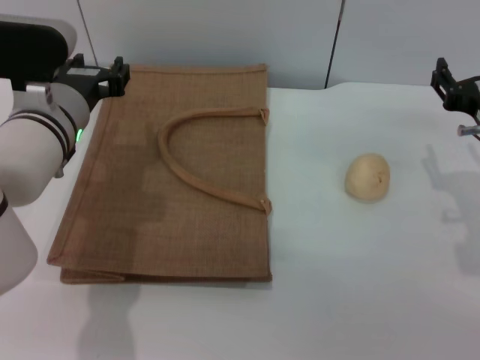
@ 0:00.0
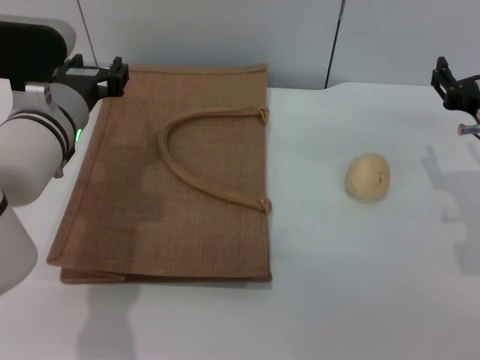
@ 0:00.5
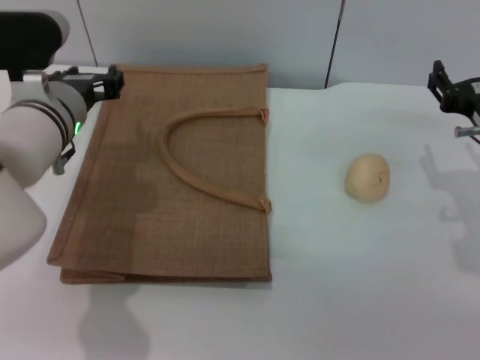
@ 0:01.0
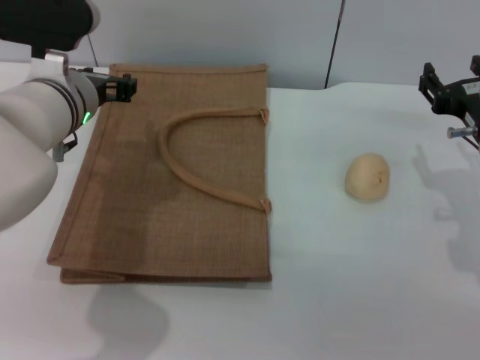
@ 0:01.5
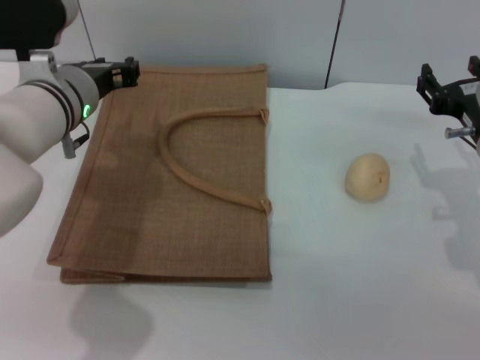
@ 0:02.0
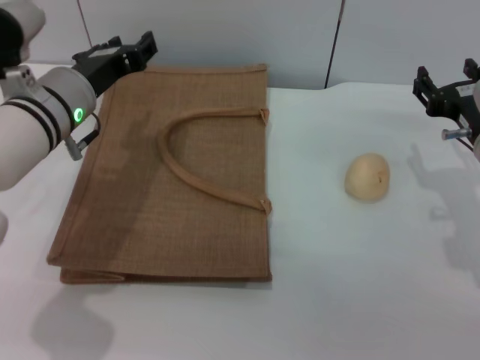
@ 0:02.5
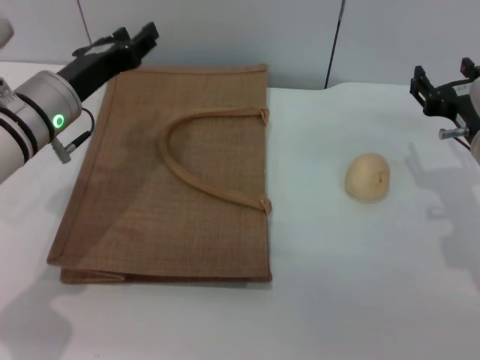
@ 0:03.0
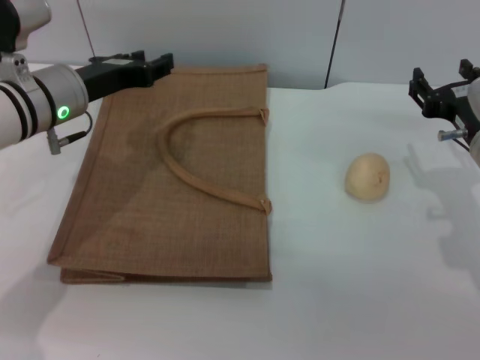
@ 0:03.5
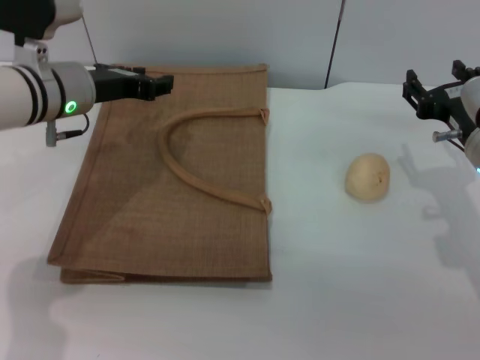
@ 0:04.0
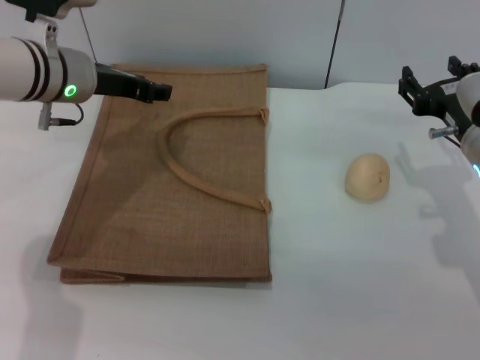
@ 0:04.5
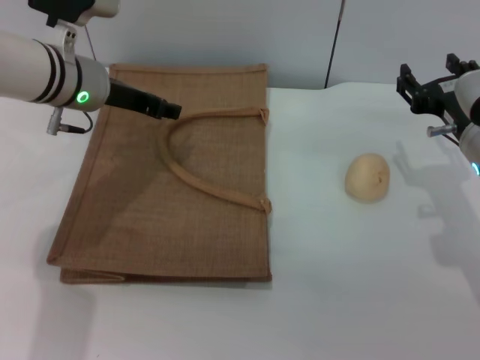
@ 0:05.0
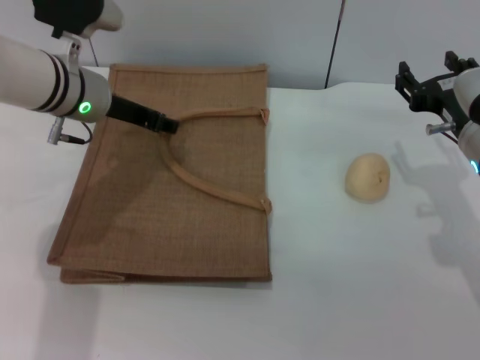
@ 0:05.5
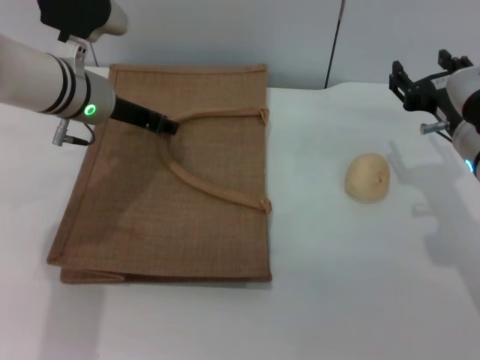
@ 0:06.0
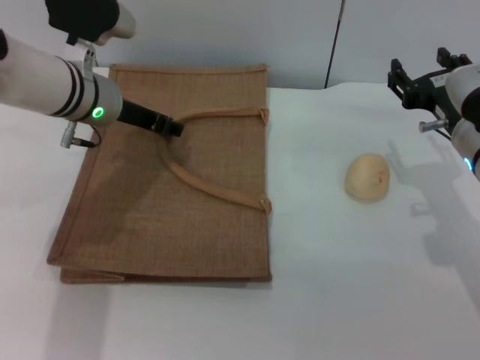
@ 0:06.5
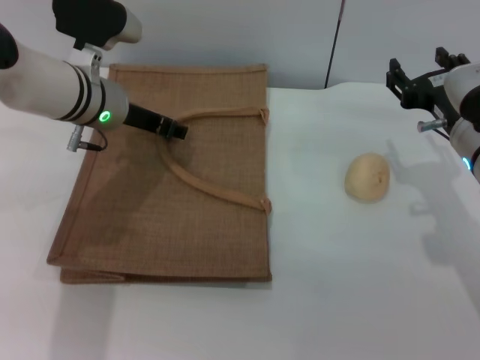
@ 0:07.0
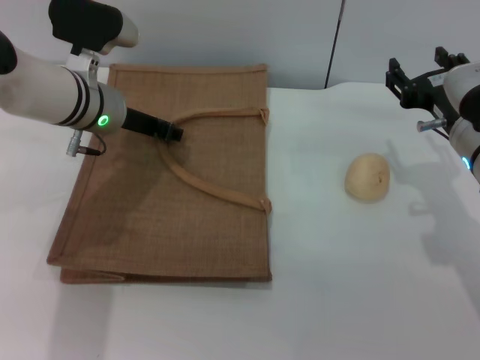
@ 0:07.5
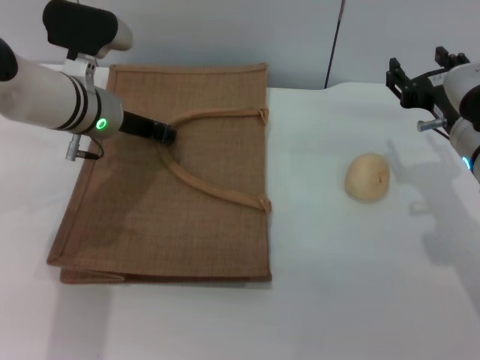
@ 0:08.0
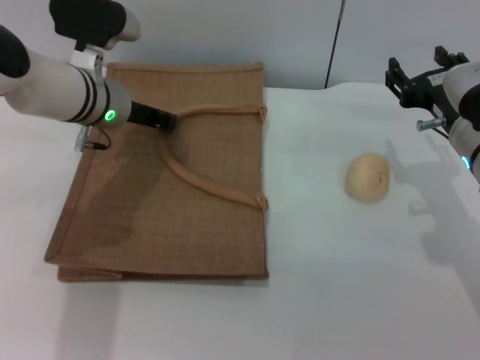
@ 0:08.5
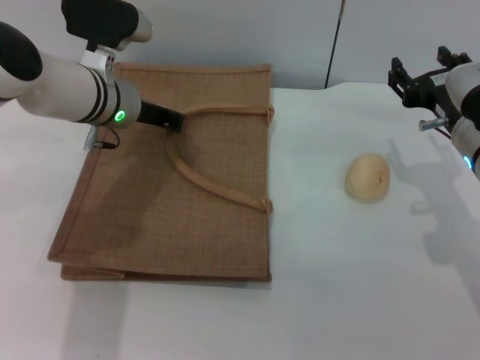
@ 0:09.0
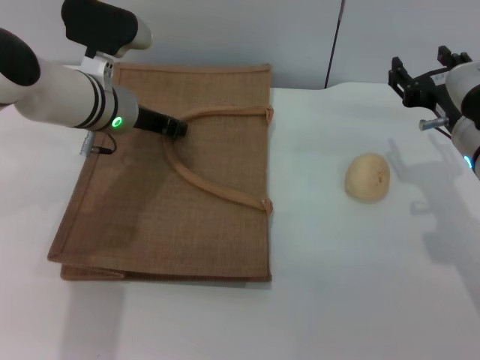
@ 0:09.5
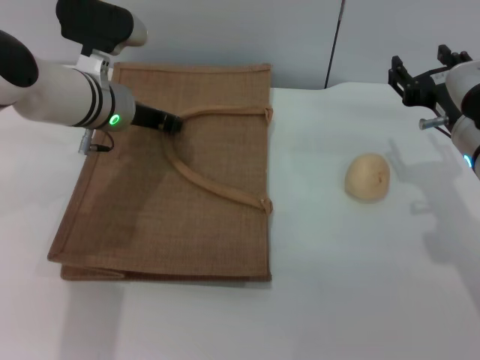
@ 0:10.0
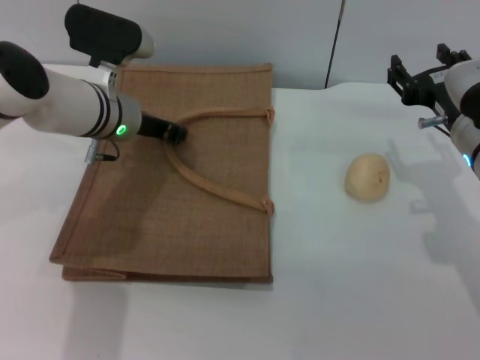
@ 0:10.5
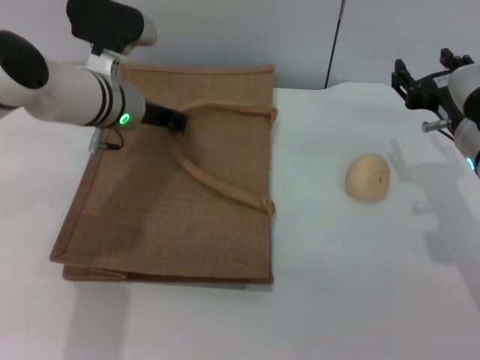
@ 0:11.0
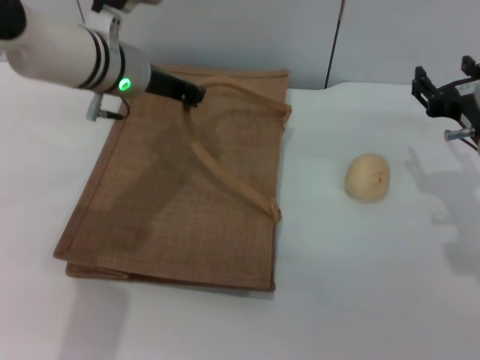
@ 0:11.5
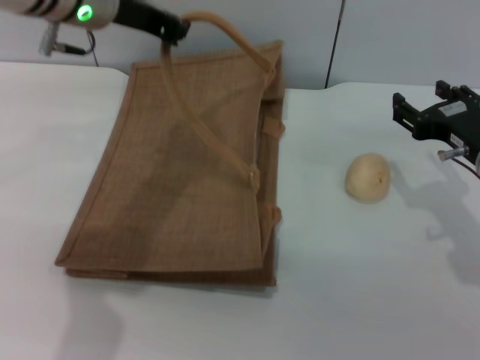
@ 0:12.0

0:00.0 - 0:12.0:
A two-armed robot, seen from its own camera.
Task of the whole recording: pick up the egg yolk pastry from the table and place it in the brown handbag.
Step, 0:00.0 - 0:10.5: Lift the woven bag with the left gripper to open it.
0:00.0 - 0:02.0: The grippers move only a little.
0:06.0 - 0:10.0: The grippers move only a little.
0:10.0 - 0:12.0: The left gripper goes some 15 cm upward.

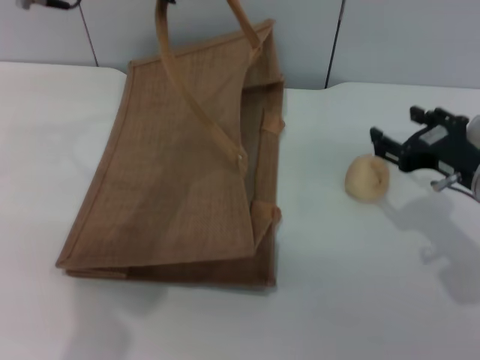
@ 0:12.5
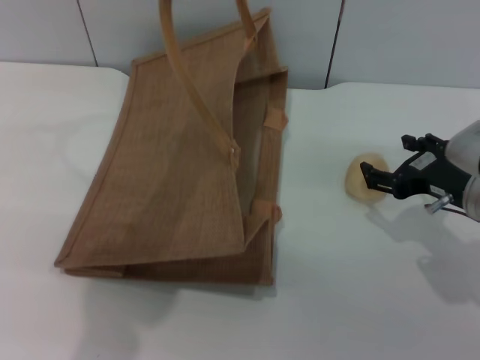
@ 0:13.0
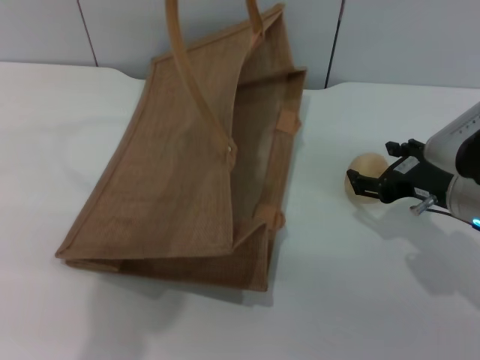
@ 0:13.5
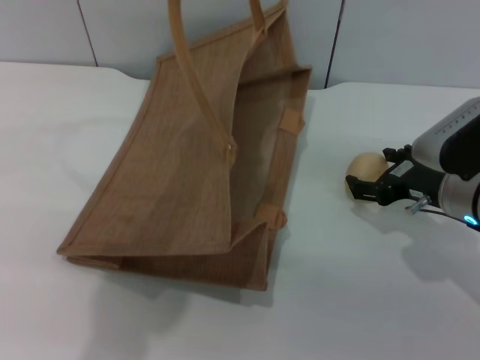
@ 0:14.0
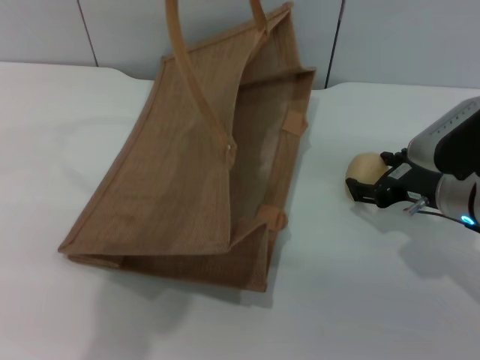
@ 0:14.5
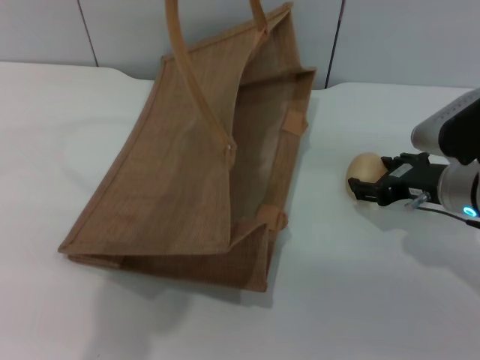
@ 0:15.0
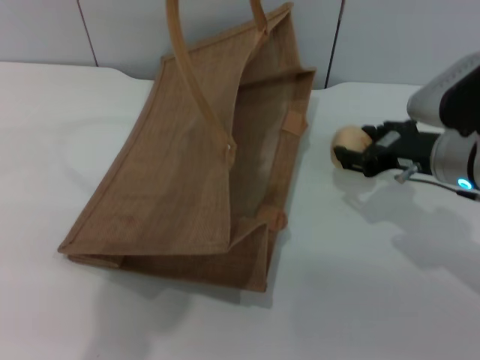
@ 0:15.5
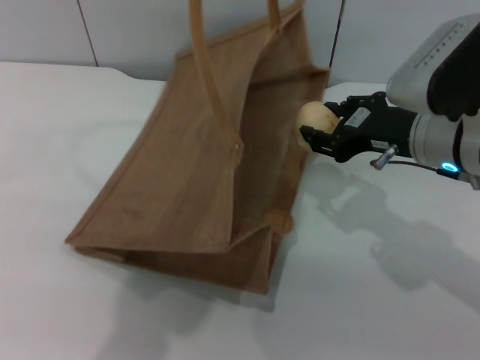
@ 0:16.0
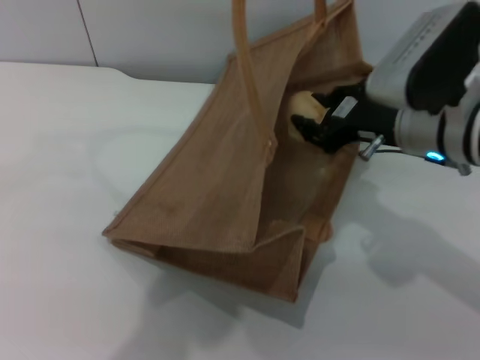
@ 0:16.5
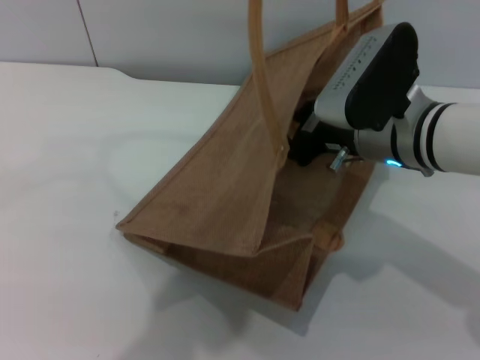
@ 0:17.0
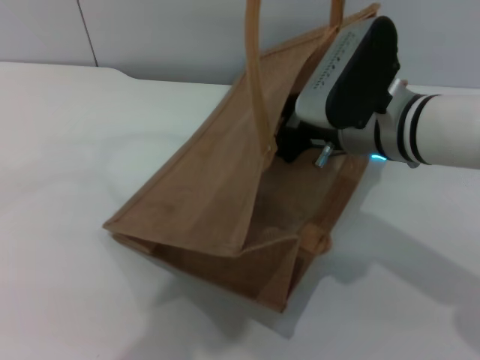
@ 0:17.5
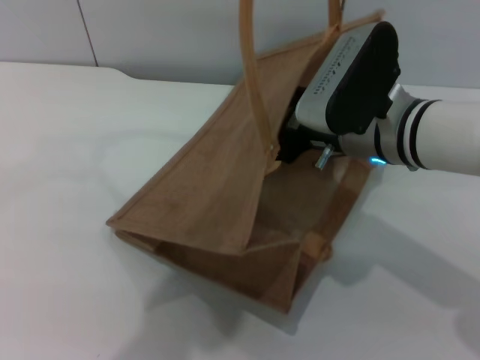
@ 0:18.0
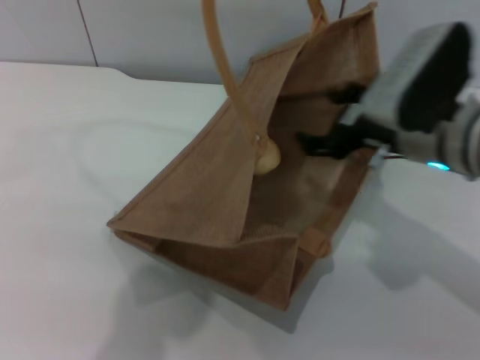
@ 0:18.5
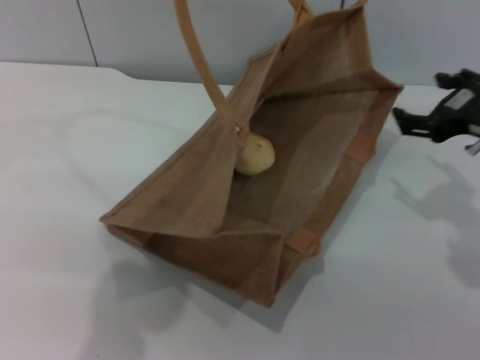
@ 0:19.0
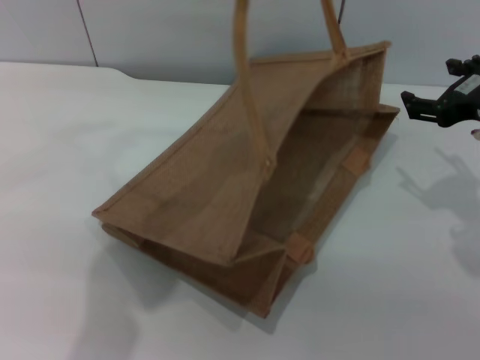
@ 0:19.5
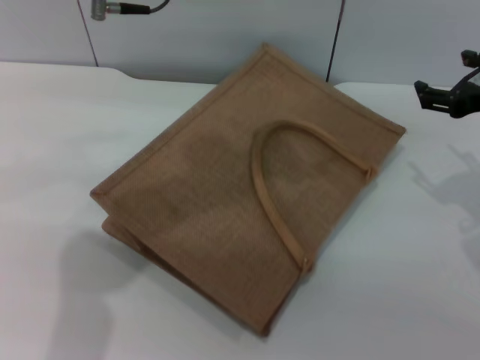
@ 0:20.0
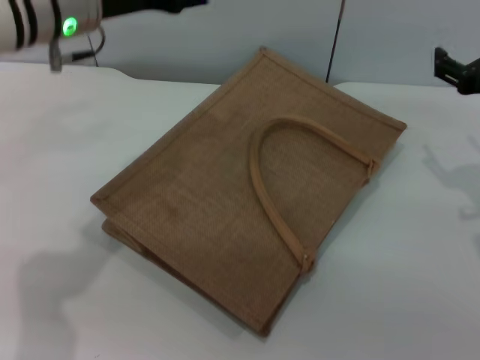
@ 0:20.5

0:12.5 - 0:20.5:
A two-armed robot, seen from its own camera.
Task of the whole recording: pick up the egg yolk pastry from the table and place it in the brown handbag.
Step, 0:12.5 - 0:15.5: Pick up the egg yolk pastry with the right gripper.
Step, 0:16.0 - 0:18.5: Place the egg yolk pastry into the woven bag with the right gripper.
Step, 0:19.0 - 0:20.0: Lower the woven bag with the left gripper to close it.
0:12.5 - 0:14.5: The grippers make only small movements.
0:14.5 - 0:16.5: The right gripper travels upward and to the left by some 10 cm, and closes; the left gripper goes some 5 cm to the right.
0:16.5 - 0:18.5: The right gripper opens.
0:18.5 - 0:20.5: The right gripper travels to the right by about 10 cm. Meanwhile the left gripper heads downward and to the left, covering about 15 cm, and opens up.
